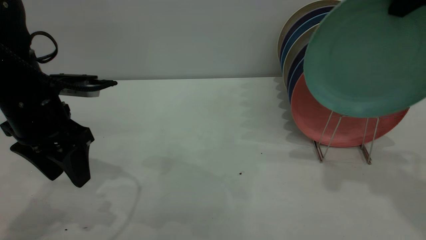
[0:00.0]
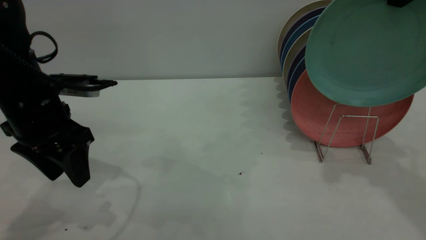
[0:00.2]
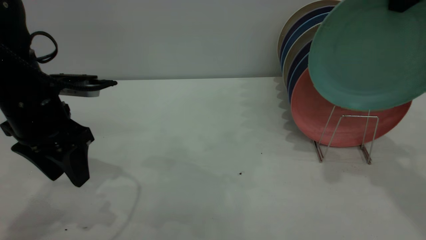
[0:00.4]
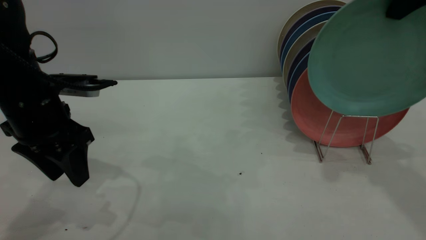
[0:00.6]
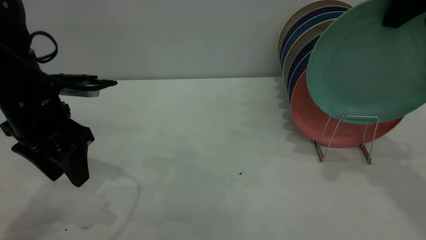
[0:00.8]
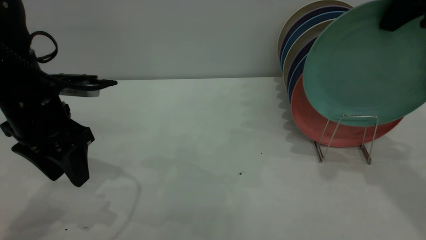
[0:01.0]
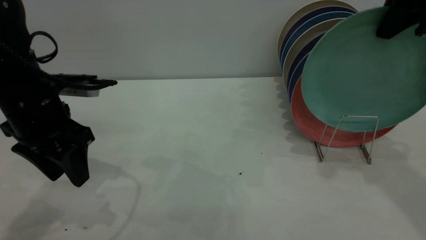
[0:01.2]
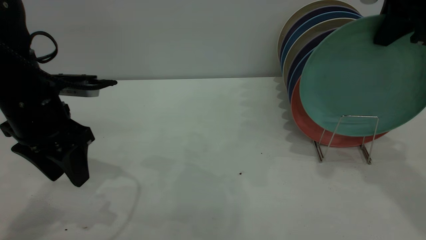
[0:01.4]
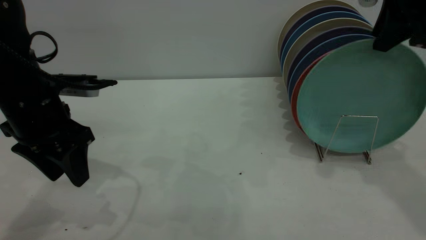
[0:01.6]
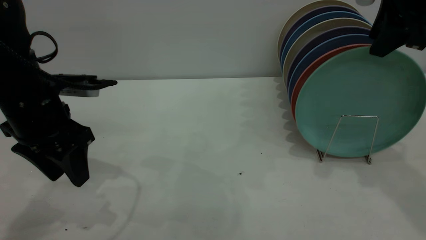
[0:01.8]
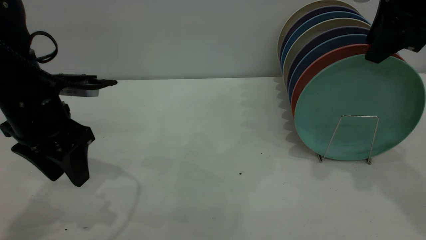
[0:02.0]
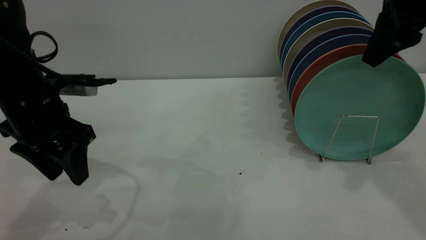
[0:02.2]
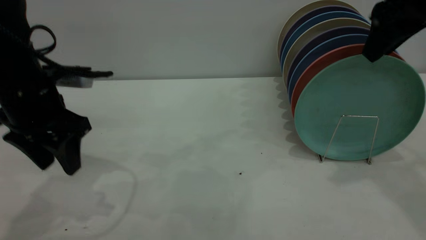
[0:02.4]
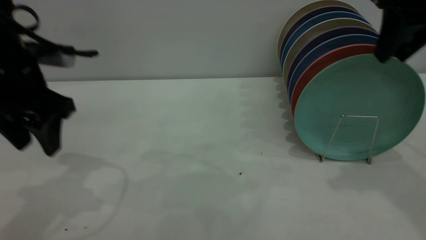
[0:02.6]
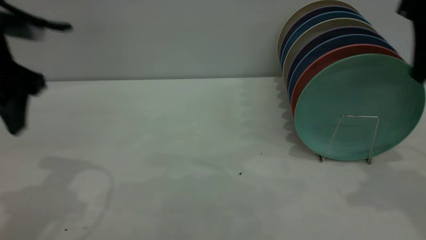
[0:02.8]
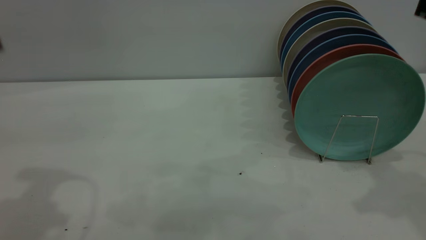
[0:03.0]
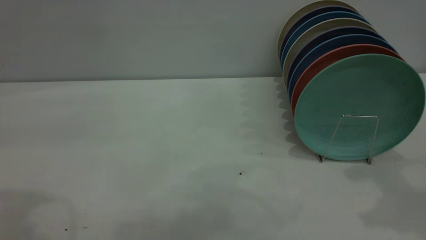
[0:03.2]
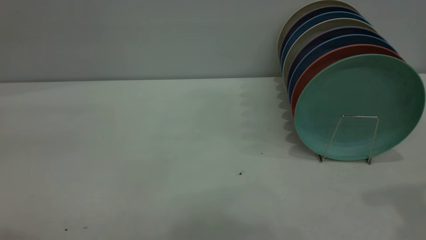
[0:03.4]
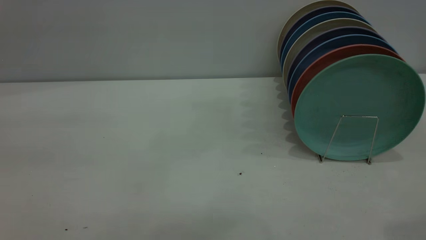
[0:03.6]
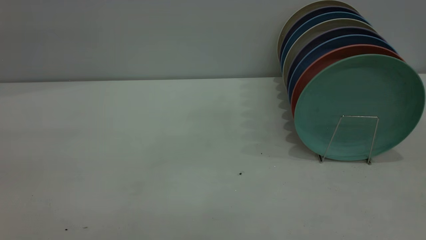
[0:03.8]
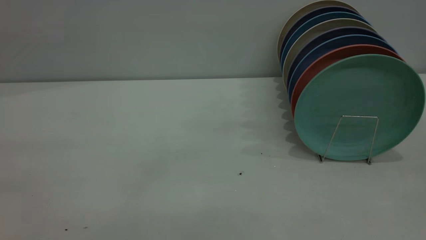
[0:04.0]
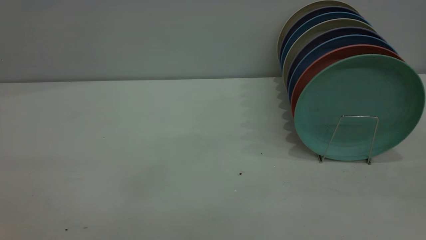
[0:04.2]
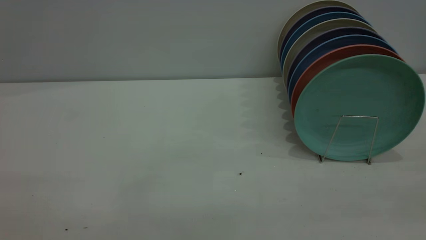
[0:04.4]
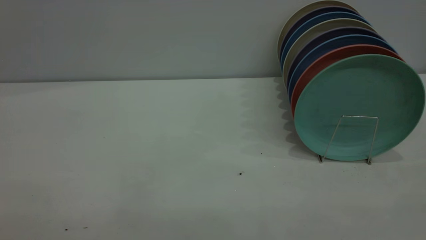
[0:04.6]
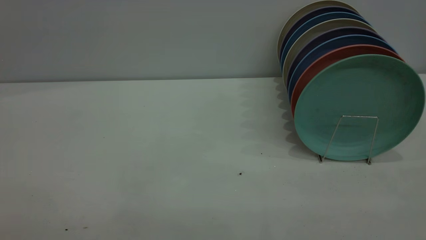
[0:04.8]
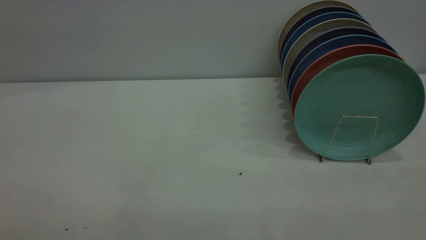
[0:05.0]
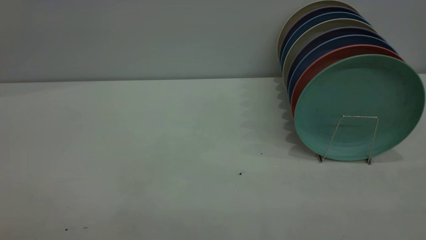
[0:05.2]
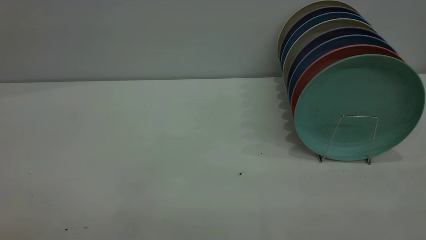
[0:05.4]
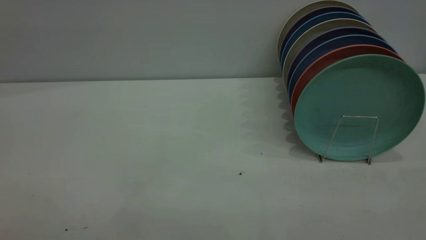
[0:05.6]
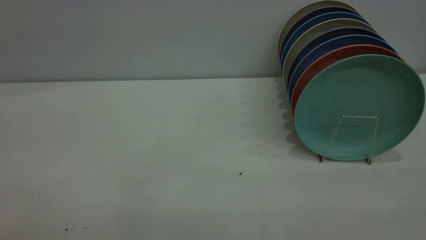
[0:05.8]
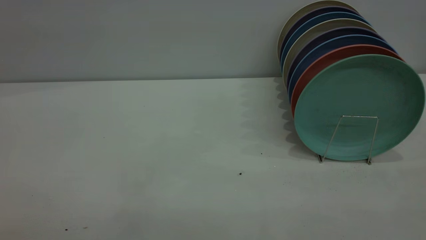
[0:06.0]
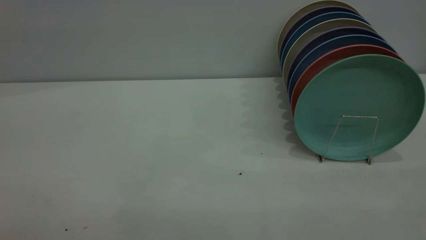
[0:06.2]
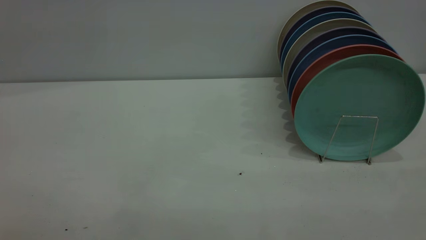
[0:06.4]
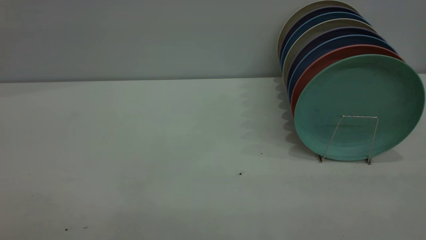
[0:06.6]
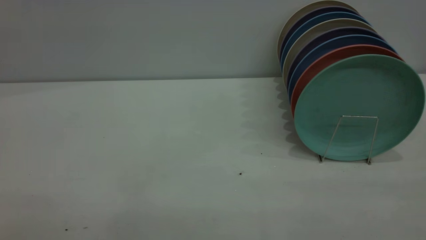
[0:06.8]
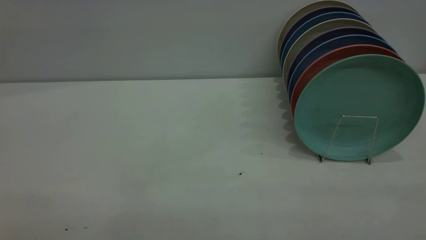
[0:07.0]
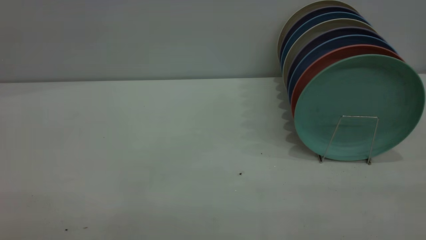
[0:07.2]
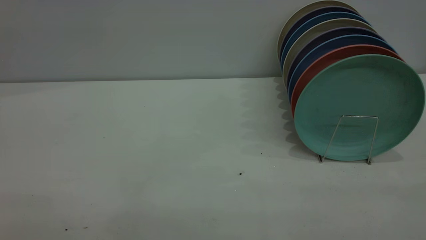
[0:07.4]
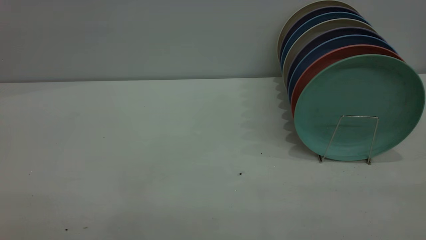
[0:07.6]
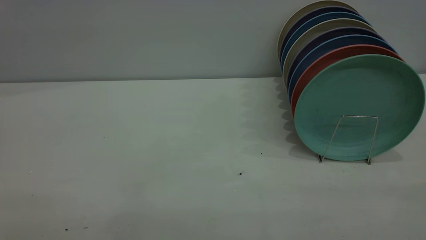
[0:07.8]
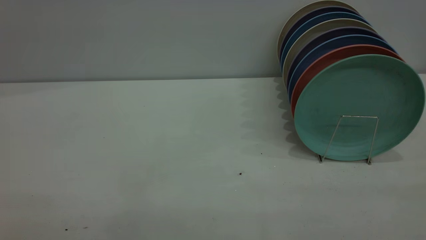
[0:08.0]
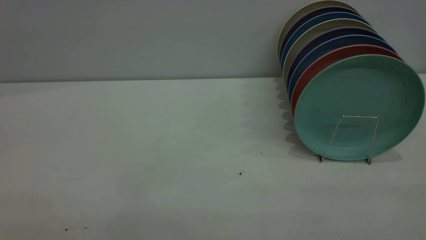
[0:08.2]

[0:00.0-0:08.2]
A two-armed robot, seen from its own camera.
Task of the whole recording: the left gripper grasp the green plate, the left gripper pass the green plate to the right gripper, and the right gripper place the green plate on the plate rack.
Step, 0:00.0 to 0:02.8: Place the plate on the shelf.
0:00.0 to 0:01.6: The right gripper changes place by some 5 cm, and opens.
0:01.6 to 0:03.2: The right gripper goes approximately 10 cm backward. Meanwhile the left gripper goes roughly 25 cm upward and backward.
